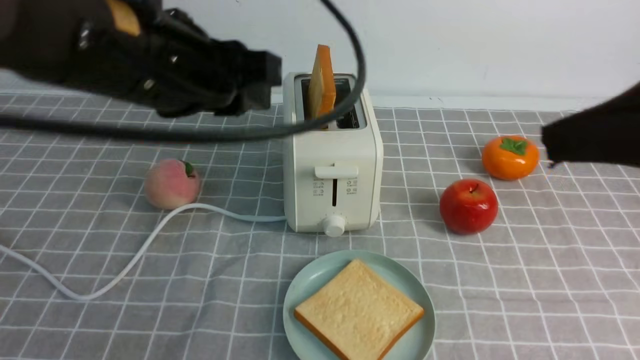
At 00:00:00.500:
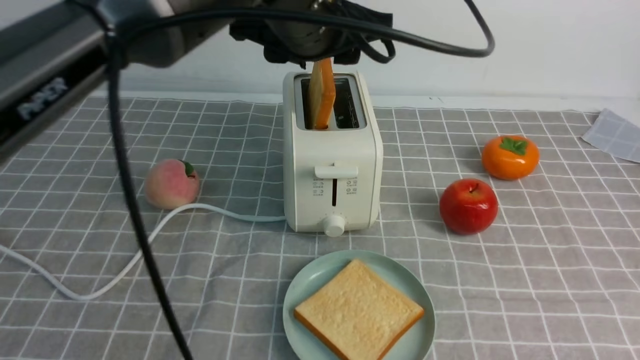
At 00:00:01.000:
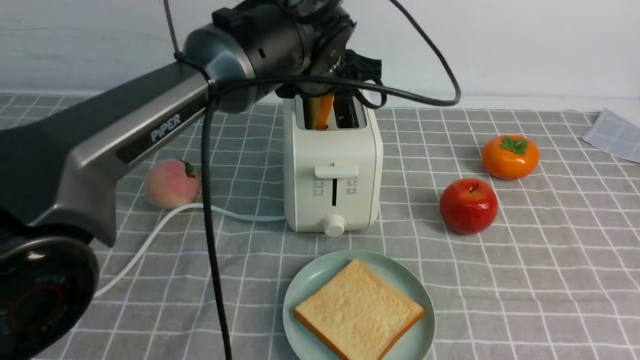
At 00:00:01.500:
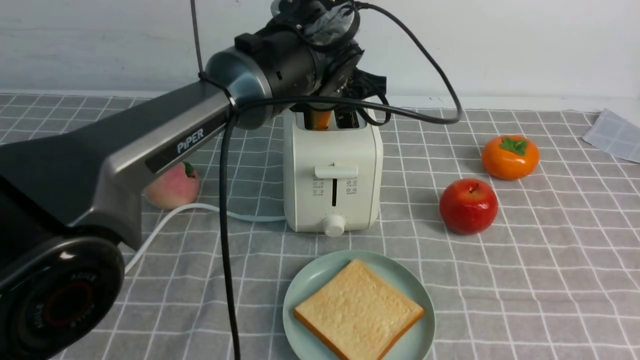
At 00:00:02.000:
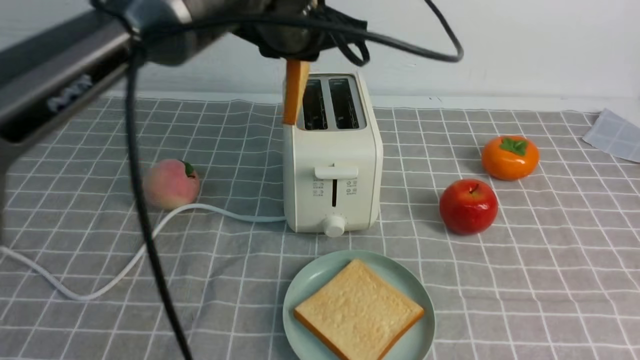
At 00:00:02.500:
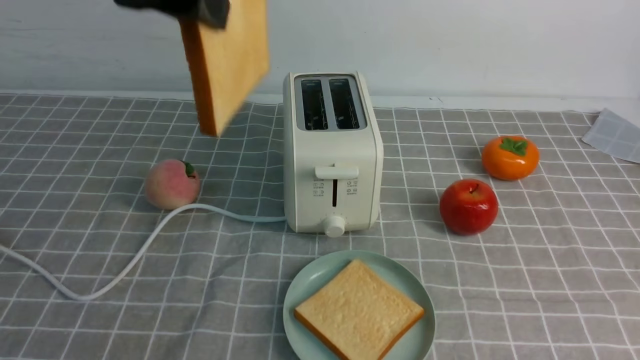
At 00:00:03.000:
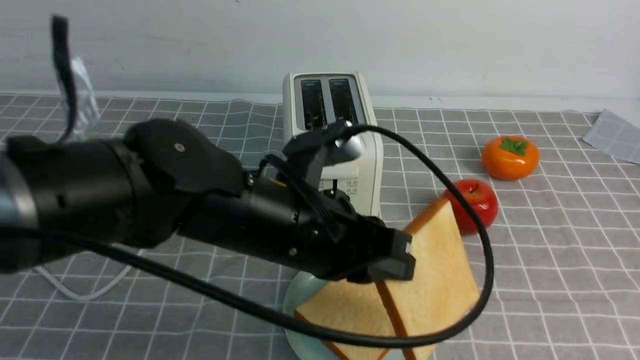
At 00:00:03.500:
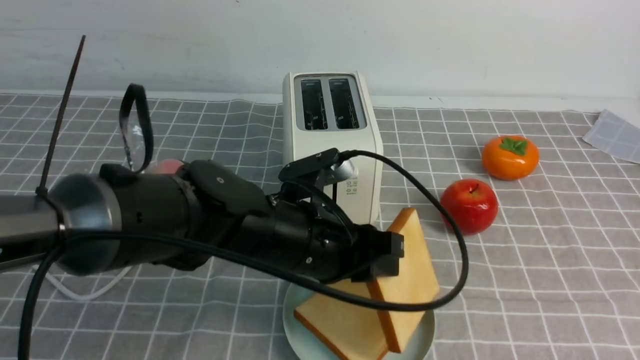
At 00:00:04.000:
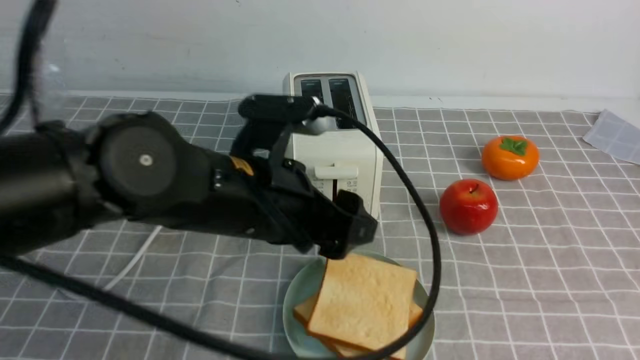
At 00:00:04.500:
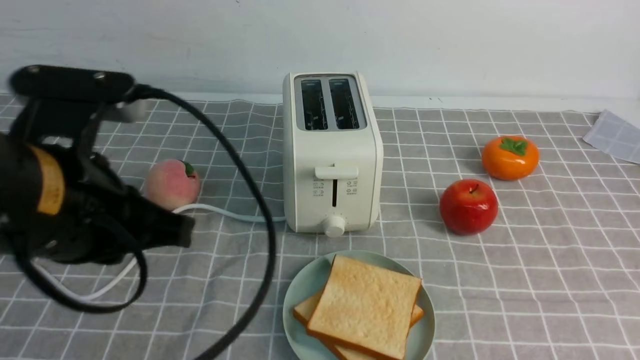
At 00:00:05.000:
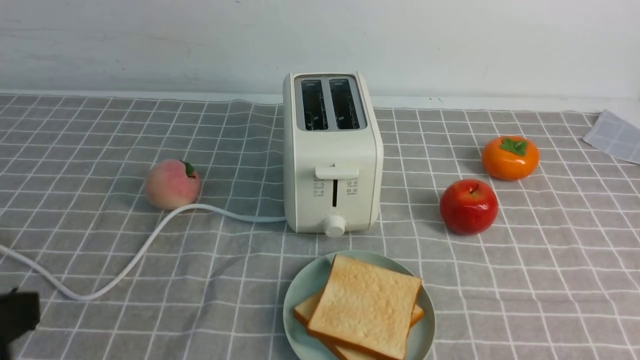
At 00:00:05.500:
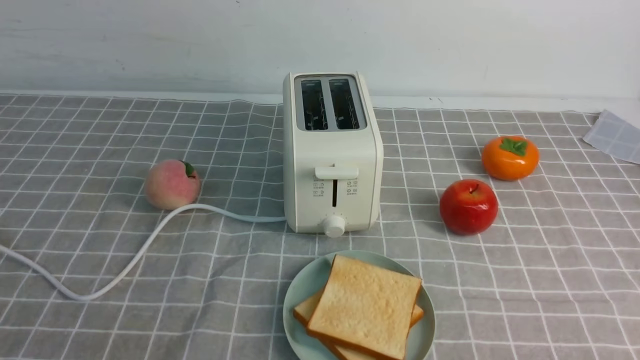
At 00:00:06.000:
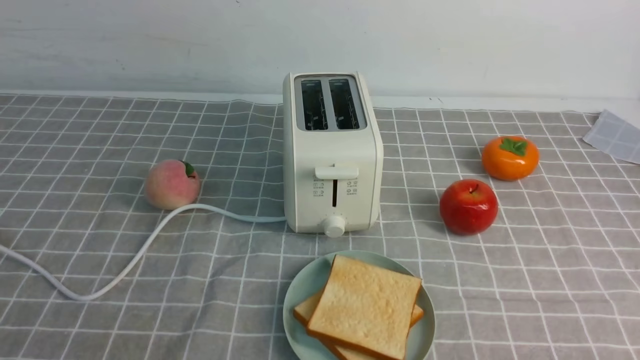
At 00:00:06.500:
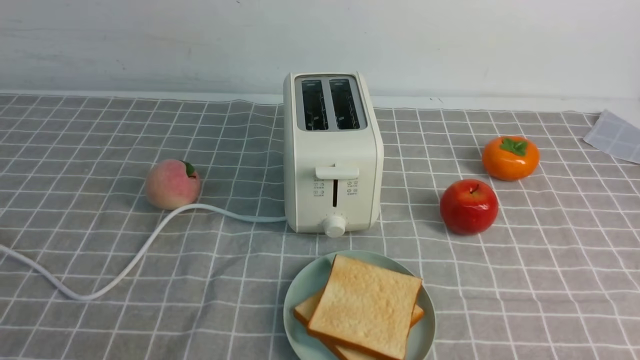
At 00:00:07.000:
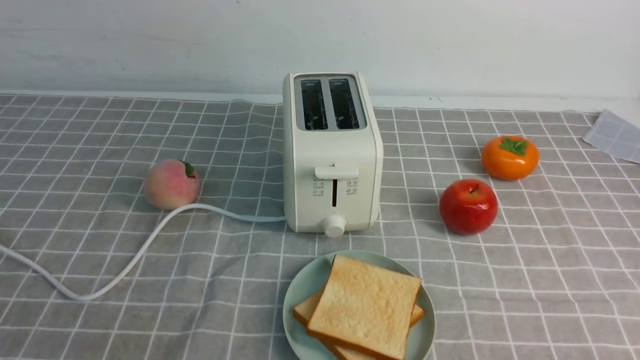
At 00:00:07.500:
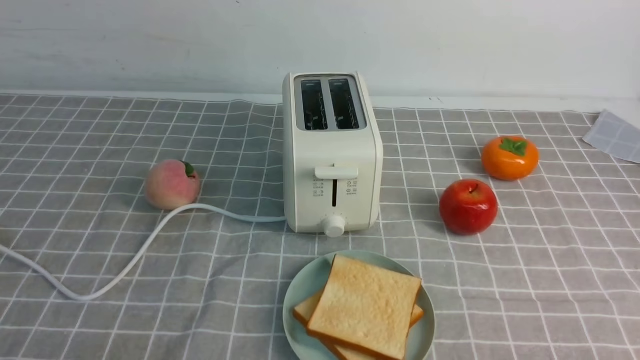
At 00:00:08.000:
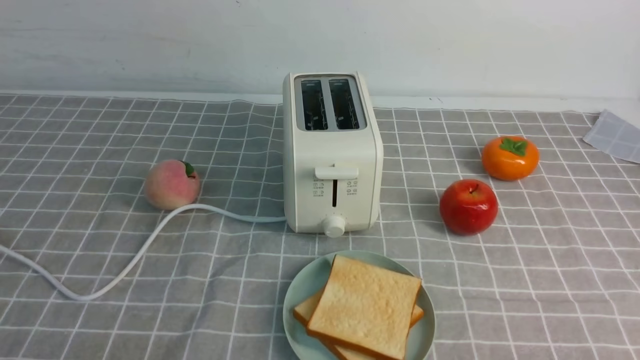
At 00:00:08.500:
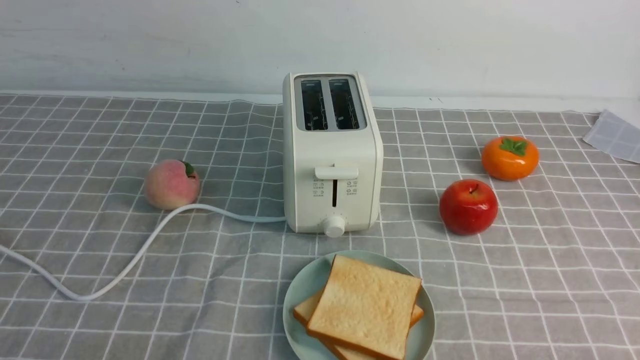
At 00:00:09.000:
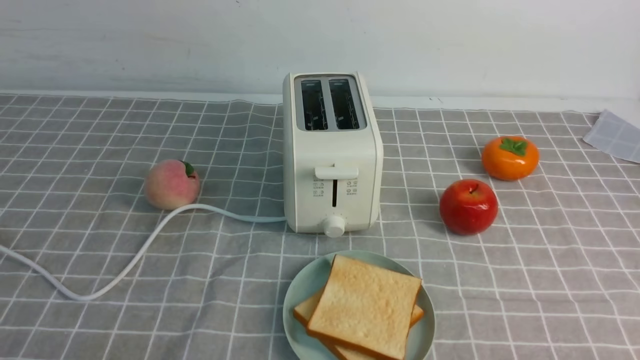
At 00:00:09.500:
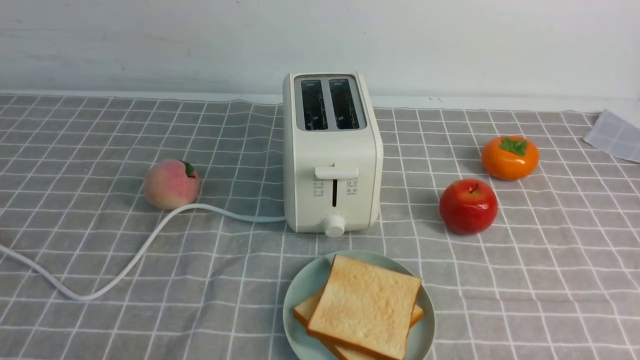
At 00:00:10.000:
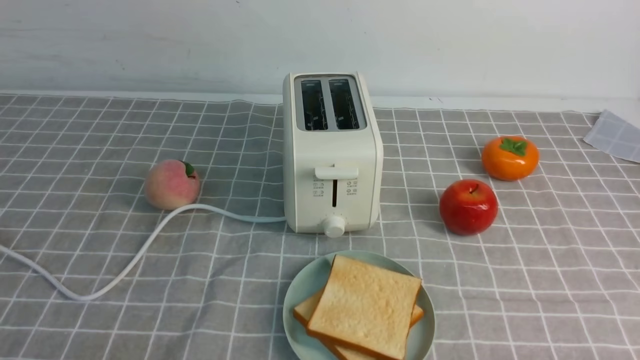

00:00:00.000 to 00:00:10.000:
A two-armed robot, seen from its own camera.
Task of the whole recording: take toasted bread from bread machine on grey coffee table place on plate.
Step, 00:00:00.000 to 00:00:02.000: use the left arm to take out a slice of bread.
Step, 00:00:02.500 to 00:00:04.000: use the left arm to put a slice of bread into the empty plate.
00:00:00.000 to 00:00:02.000: The left gripper heads forward and to the right, covering some 10 cm, and closes its fingers. Meanwhile the right gripper moves backward, some 10 cm.
00:00:02.000 to 00:00:04.000: The left gripper swings up and down, roughly 25 cm each way, with 2 reversals, and opens up; the right gripper closes its fingers.
00:00:04.000 to 00:00:06.000: The right gripper travels downward by approximately 15 cm, and closes its fingers, while the left gripper travels backward and to the left by roughly 30 cm, and closes up.

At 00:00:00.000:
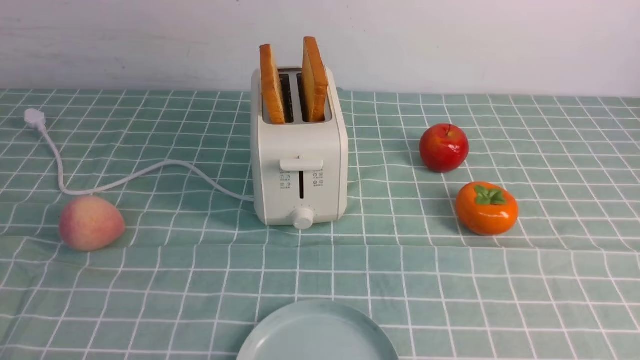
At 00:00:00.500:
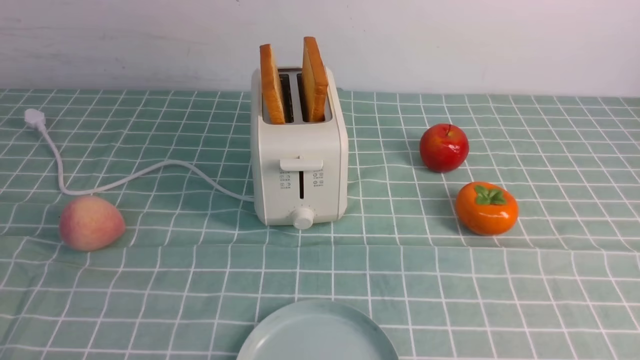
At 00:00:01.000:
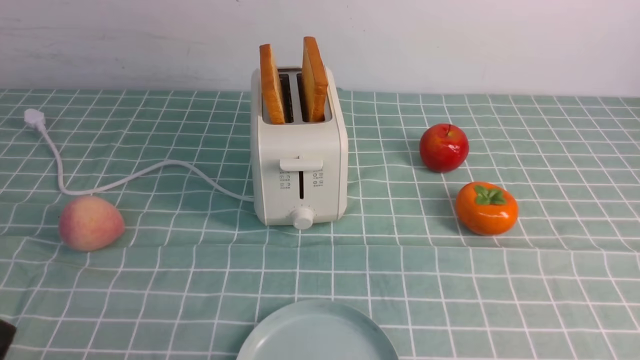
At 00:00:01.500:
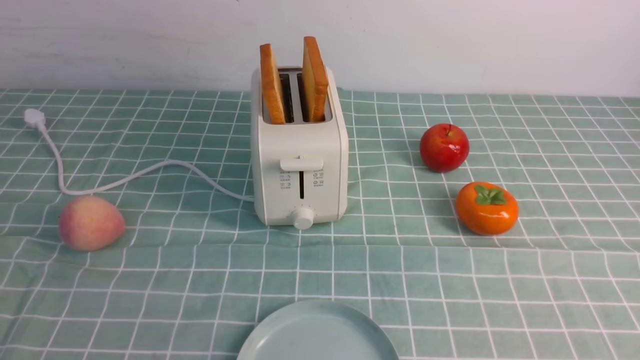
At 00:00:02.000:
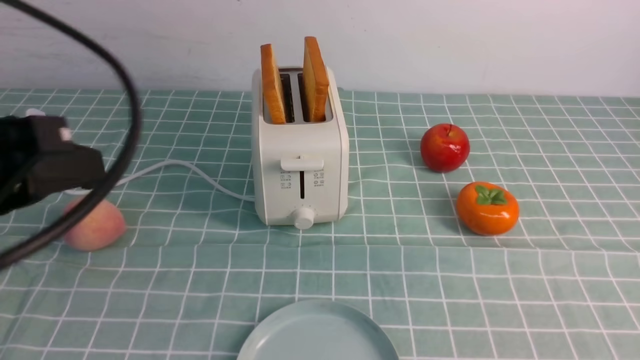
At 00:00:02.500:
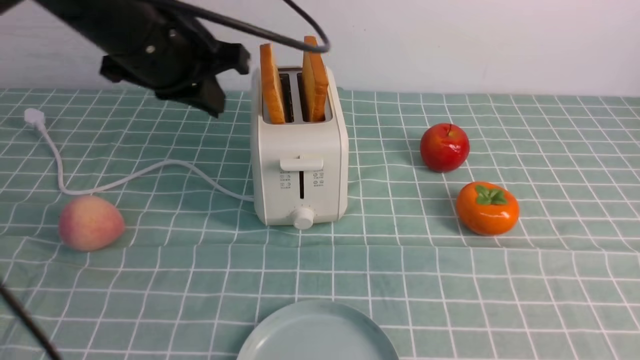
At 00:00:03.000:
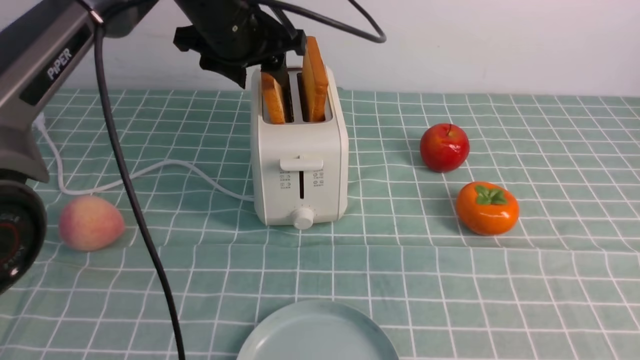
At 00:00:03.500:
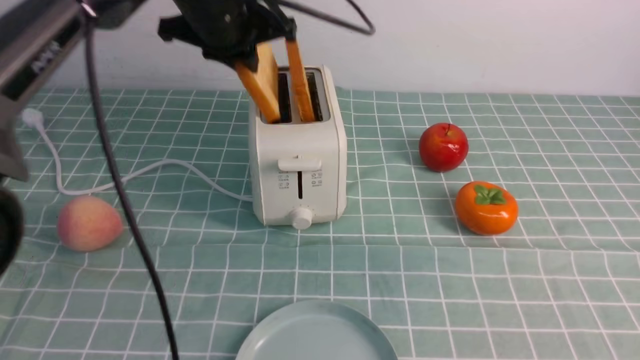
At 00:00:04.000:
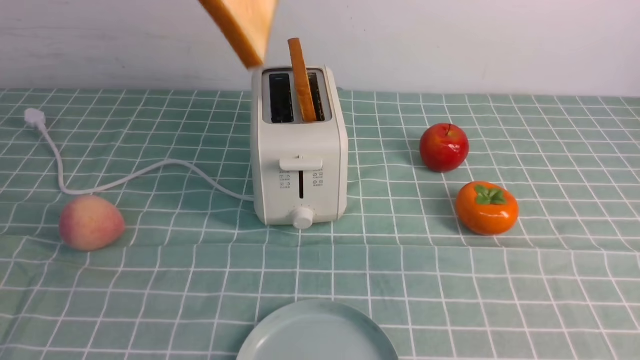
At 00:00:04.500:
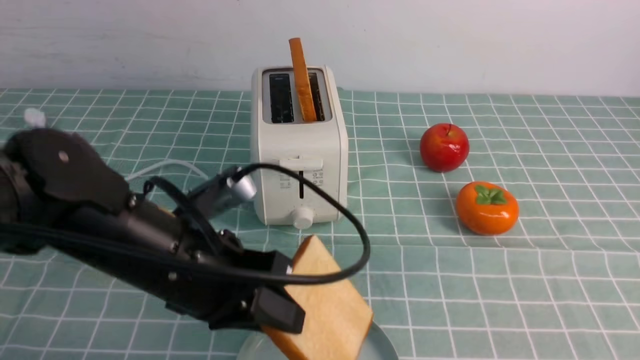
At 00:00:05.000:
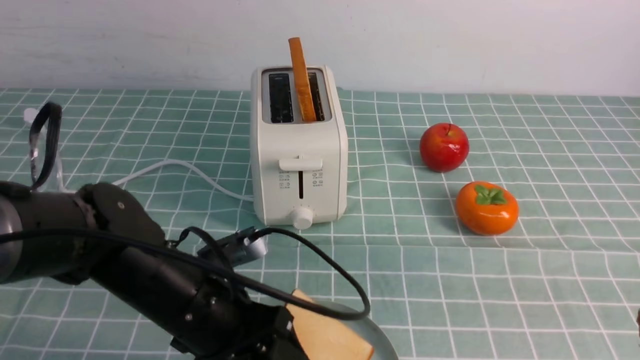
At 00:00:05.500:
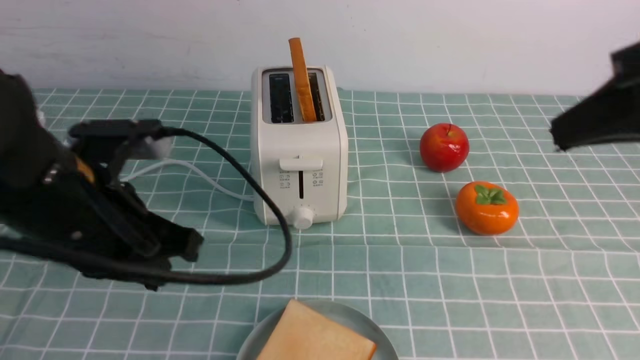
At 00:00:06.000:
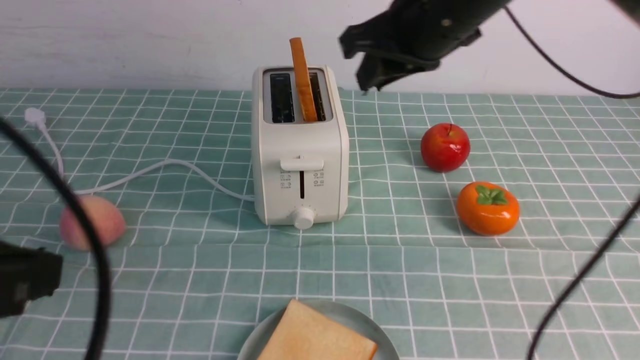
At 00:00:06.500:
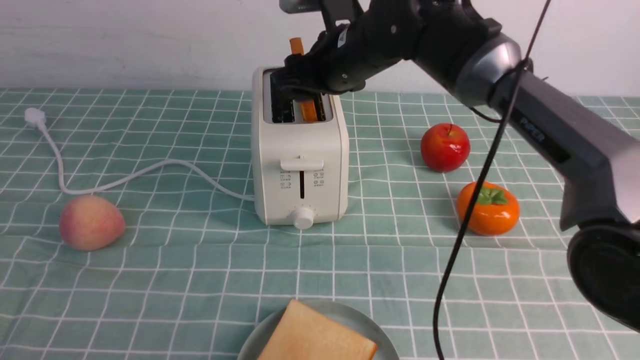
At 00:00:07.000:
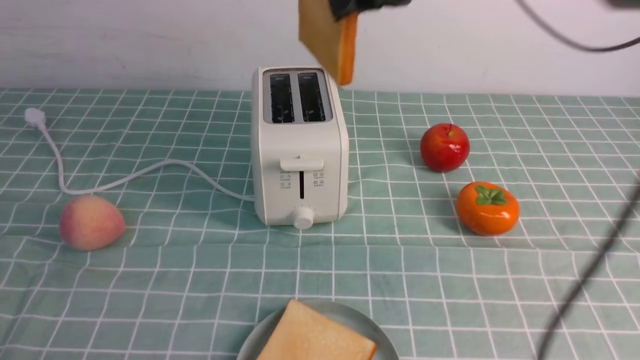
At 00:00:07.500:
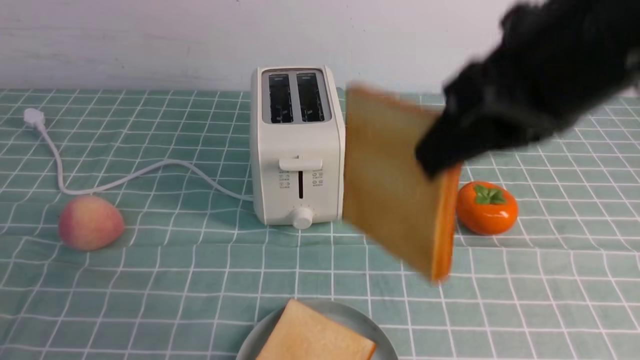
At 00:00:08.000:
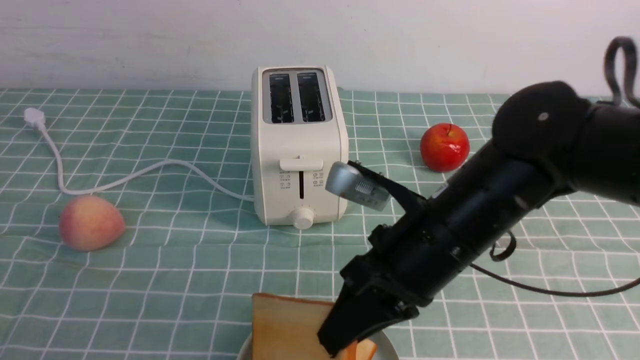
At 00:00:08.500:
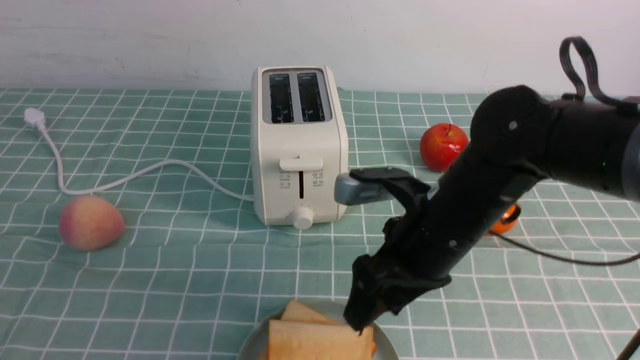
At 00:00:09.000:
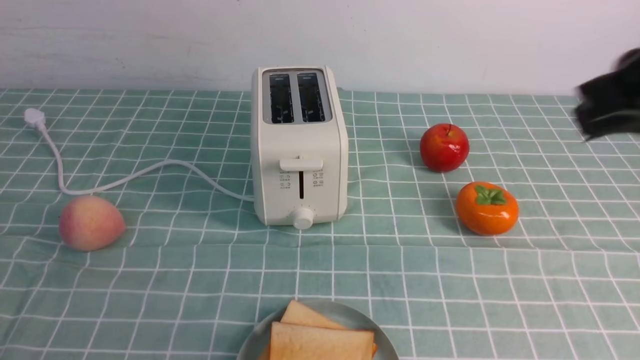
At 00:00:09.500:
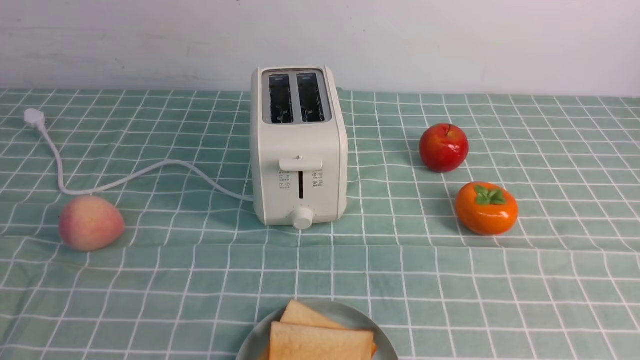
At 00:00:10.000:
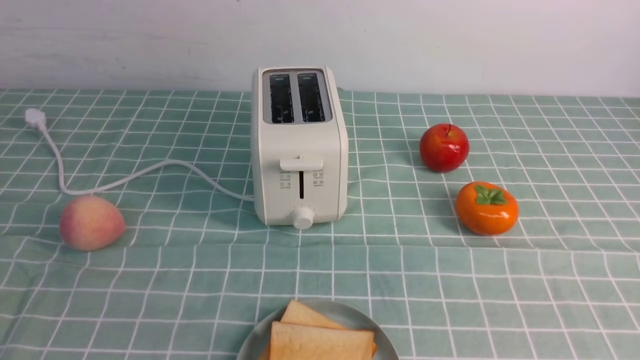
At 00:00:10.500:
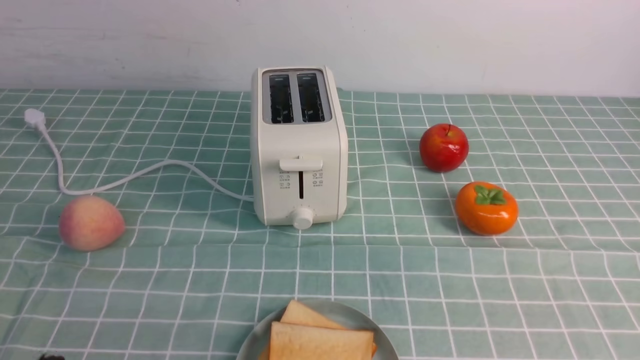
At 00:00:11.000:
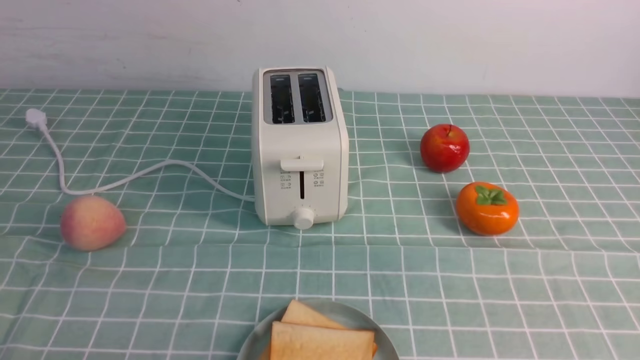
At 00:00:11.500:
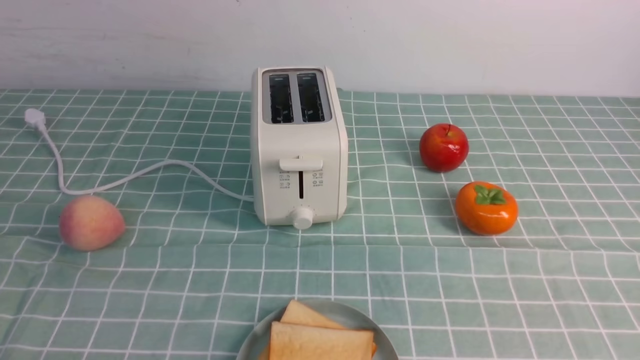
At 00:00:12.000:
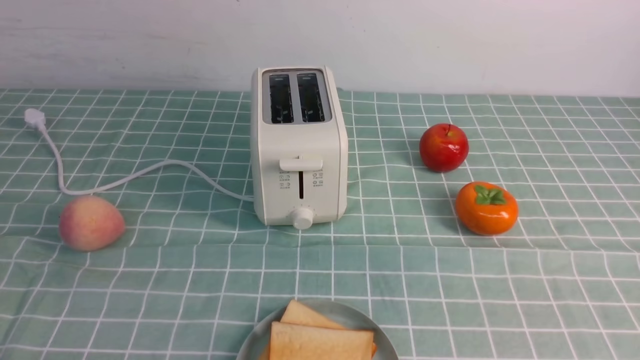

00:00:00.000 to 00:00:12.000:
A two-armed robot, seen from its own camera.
Task of the whole recording: take toasted bread from bread machine on blue coffee table place on plate.
Step, 00:00:00.000 to 00:00:03.500: use the left arm to take out a slice of bread.
Step, 00:00:04.000 to 00:00:05.500: use the left arm to put a slice of bread into the empty plate.
Step, 00:00:06.000 to 00:00:07.000: use the right arm to take out a slice of bread.
Step, 00:00:07.500 to 00:00:08.500: use the right arm to put a slice of bread into the plate.
00:00:00.000 to 00:00:02.000: The left gripper goes some 25 cm upward and forward, and closes its fingers.
00:00:02.000 to 00:00:04.000: The left gripper shifts about 15 cm forward, to the right and upward, and opens, then closes again.
00:00:04.000 to 00:00:06.000: The left gripper travels backward, downward and to the left by about 20 cm, and opens, then closes again, while the right gripper shifts roughly 35 cm forward and to the left, and opens up.
00:00:06.000 to 00:00:08.000: The left gripper moves backward, about 10 cm. Meanwhile the right gripper shifts approximately 20 cm downward and backward.
00:00:08.000 to 00:00:10.000: The right gripper travels backward and to the right by approximately 35 cm, and closes its fingers.
